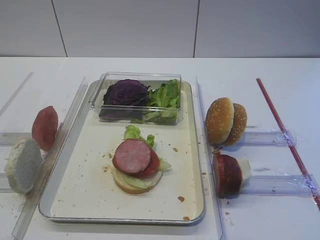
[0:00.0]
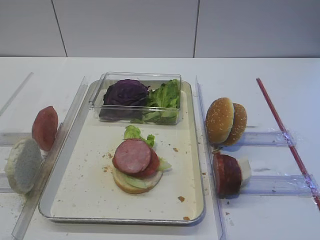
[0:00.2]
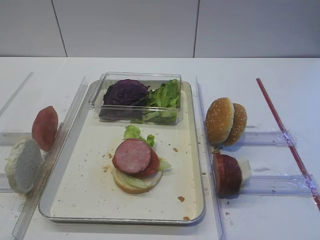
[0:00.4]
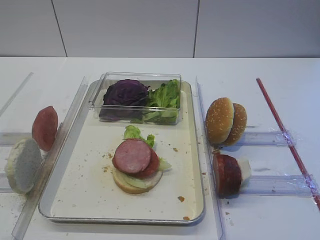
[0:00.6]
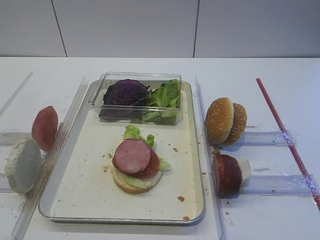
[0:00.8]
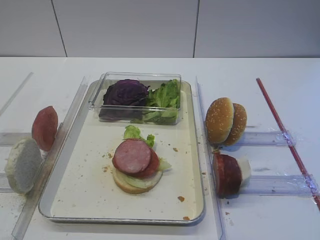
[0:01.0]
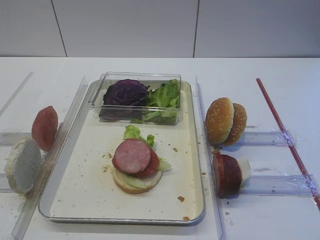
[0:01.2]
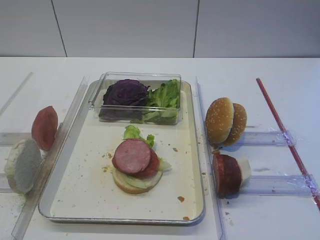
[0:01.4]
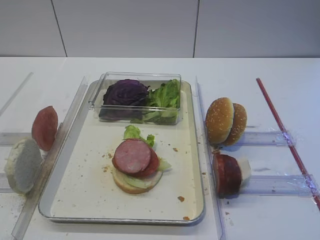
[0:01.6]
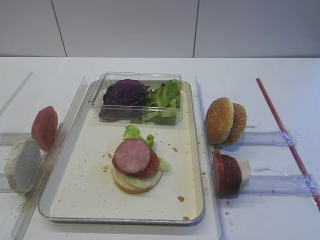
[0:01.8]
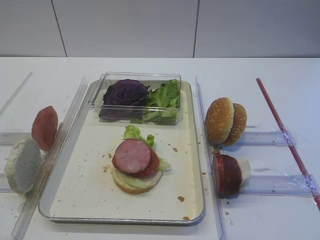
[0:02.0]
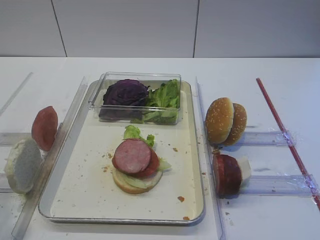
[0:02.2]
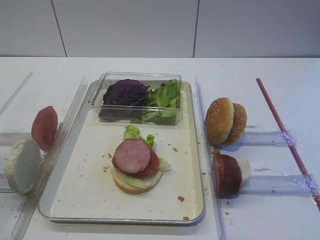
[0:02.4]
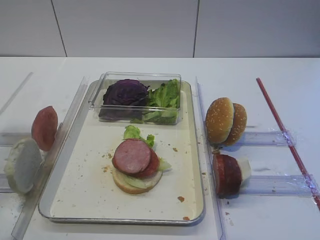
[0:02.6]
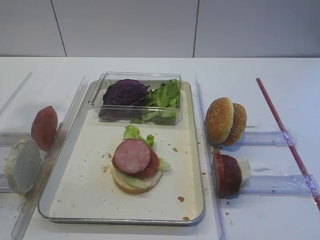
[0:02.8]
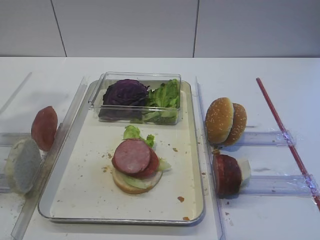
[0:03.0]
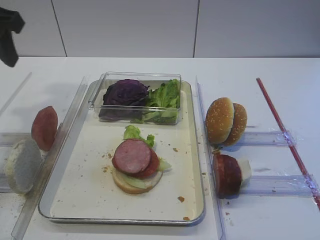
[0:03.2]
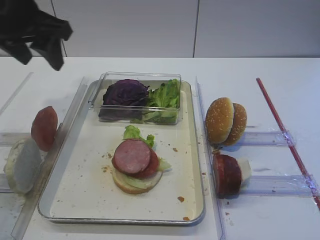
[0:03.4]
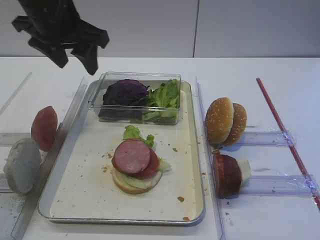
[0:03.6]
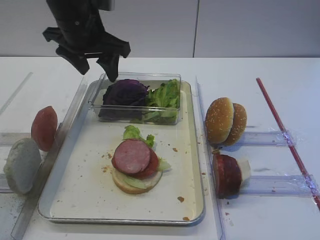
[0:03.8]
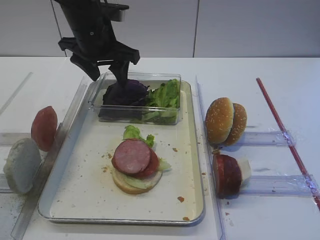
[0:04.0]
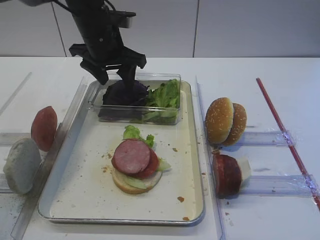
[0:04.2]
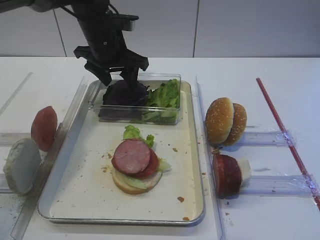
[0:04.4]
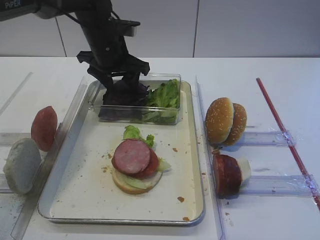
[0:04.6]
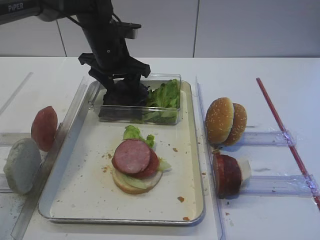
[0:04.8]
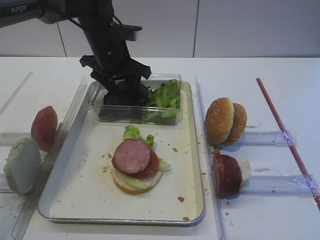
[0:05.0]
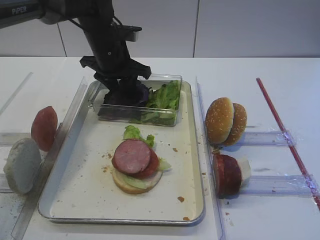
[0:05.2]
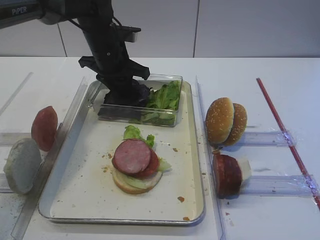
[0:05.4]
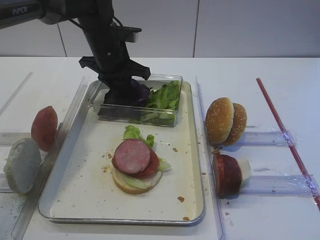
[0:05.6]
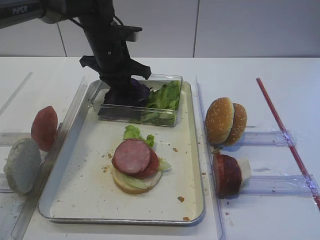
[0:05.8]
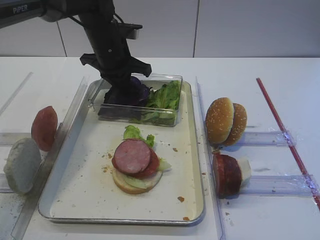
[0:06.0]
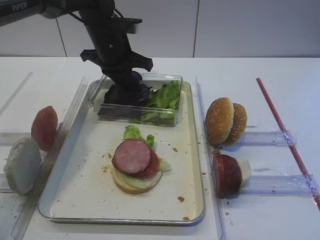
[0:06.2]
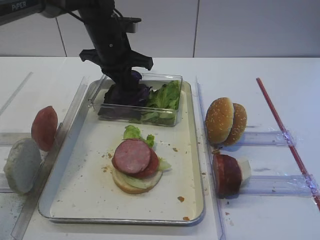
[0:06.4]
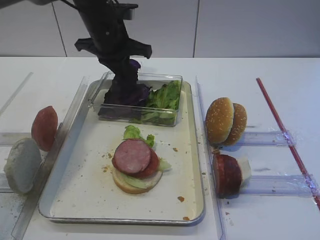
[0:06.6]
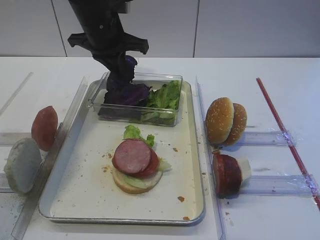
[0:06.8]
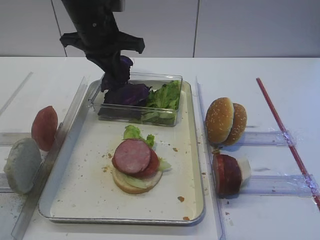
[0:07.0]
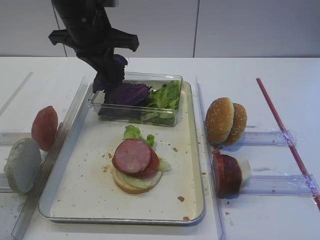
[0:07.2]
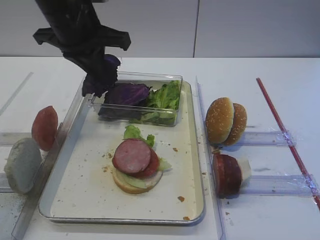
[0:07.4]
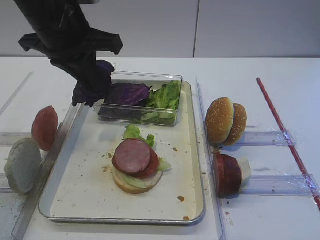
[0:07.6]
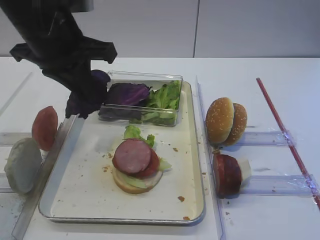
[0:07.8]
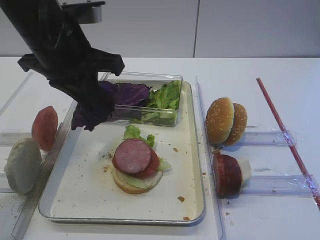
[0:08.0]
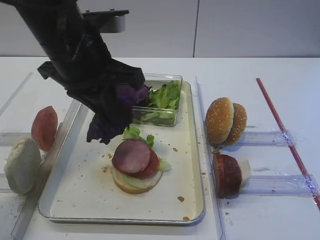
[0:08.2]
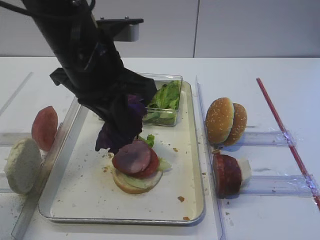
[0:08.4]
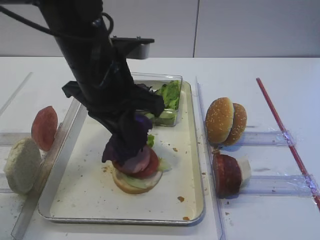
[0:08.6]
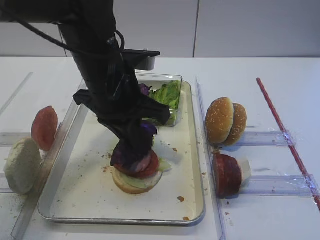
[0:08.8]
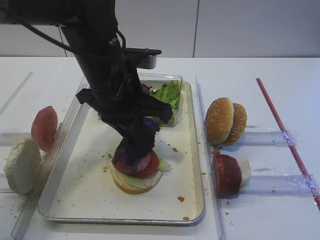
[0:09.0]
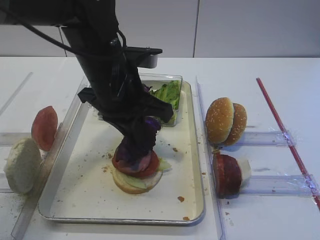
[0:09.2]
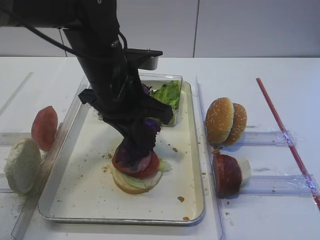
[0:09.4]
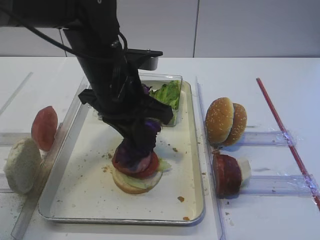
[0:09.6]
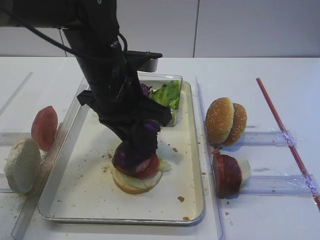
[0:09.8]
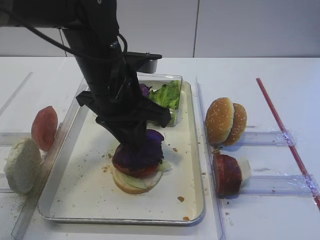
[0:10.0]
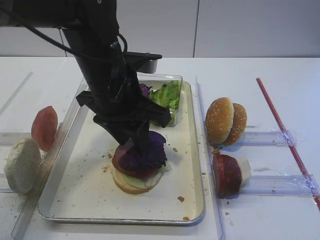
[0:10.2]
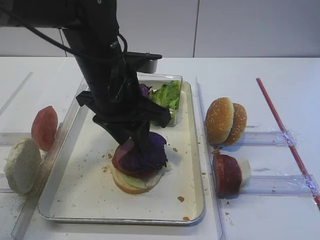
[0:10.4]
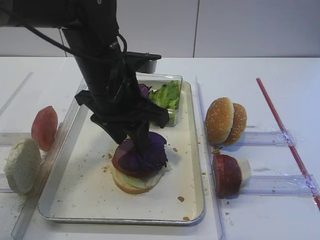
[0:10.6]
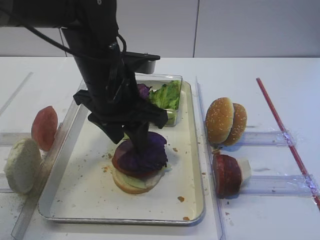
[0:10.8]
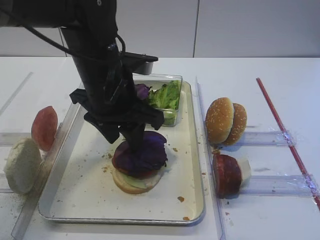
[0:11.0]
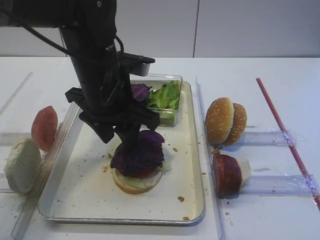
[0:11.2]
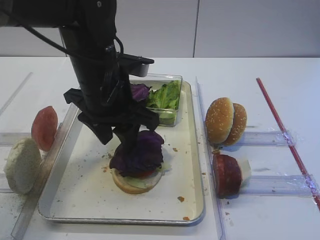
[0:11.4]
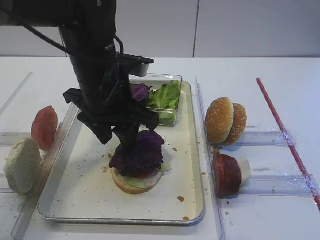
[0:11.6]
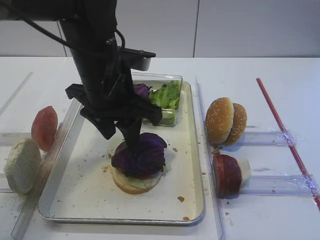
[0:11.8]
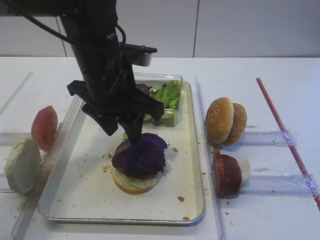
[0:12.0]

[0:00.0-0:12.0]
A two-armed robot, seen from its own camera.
Step, 0:00.0 to 0:07.4: Pick up the purple cabbage with the left gripper.
0:01.6 to 0:03.0: The left gripper is displaced forward and upward by some 30 cm.
0:03.0 to 0:04.4: The left gripper goes some 25 cm forward, to the right and downward.
0:04.4 to 0:06.0: The left gripper closes.
0:06.0 to 0:07.6: The left gripper is displaced backward and upward by about 15 cm.
0:07.6 to 0:09.0: The left gripper moves to the right and downward, some 10 cm.
0:09.0 to 0:10.4: The left gripper opens up.
0:10.4 to 0:12.0: The grippers stay close to where they were, moving slightly.

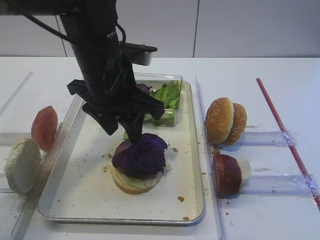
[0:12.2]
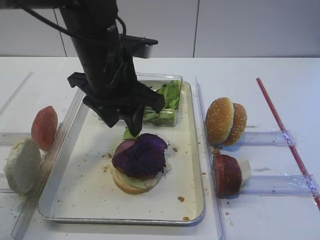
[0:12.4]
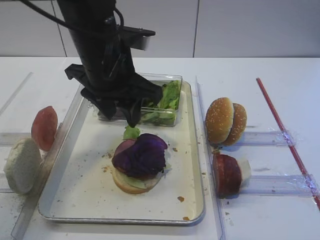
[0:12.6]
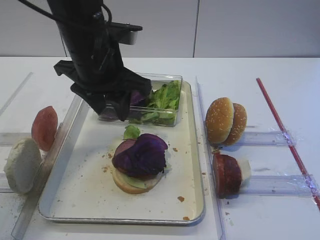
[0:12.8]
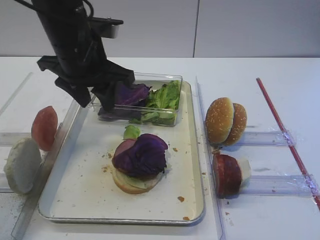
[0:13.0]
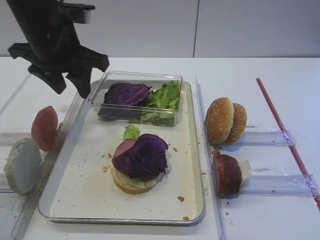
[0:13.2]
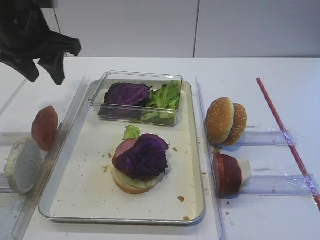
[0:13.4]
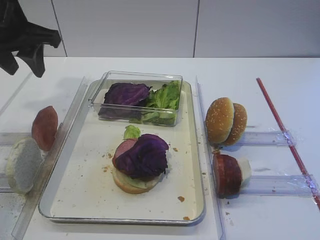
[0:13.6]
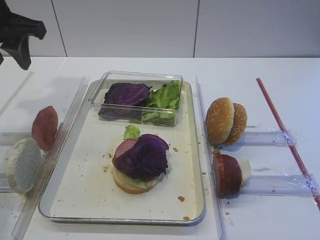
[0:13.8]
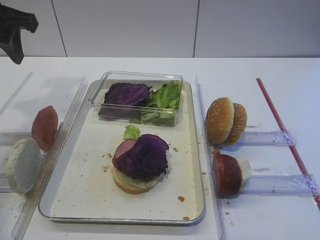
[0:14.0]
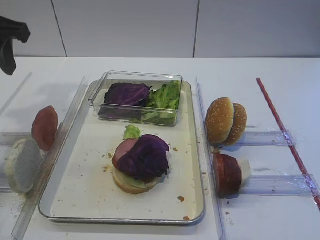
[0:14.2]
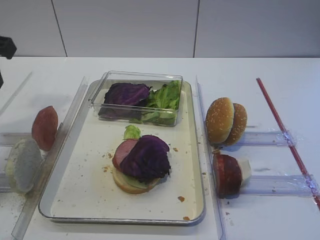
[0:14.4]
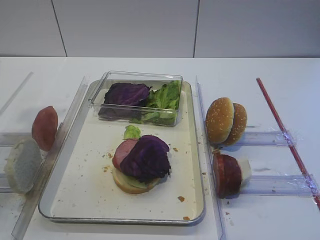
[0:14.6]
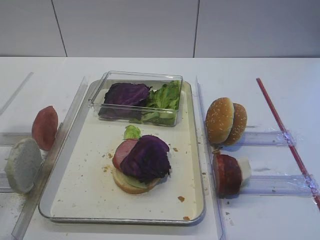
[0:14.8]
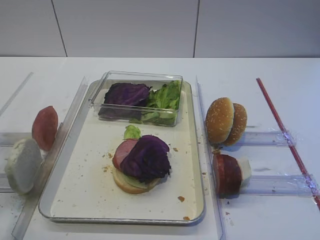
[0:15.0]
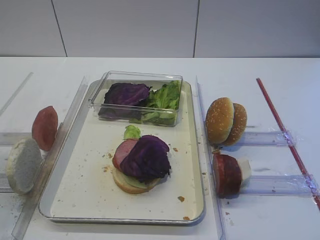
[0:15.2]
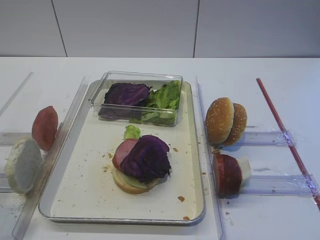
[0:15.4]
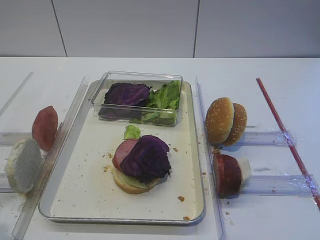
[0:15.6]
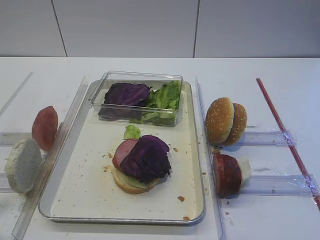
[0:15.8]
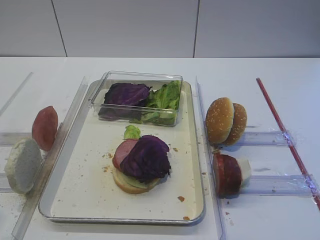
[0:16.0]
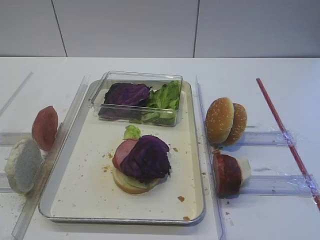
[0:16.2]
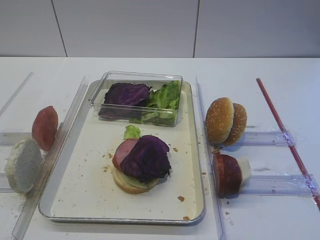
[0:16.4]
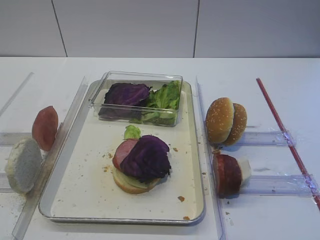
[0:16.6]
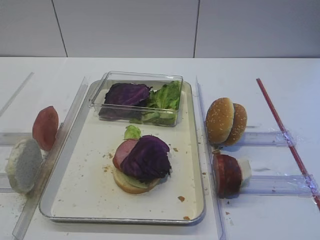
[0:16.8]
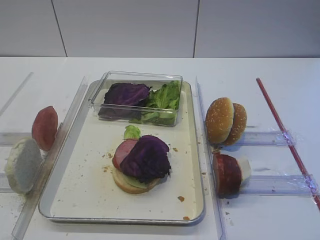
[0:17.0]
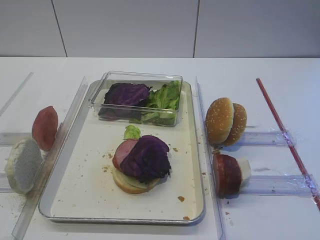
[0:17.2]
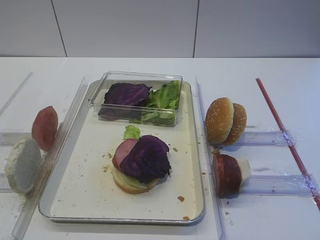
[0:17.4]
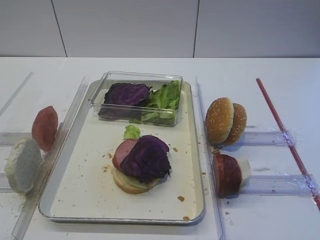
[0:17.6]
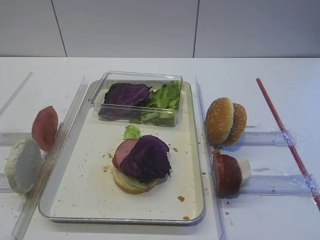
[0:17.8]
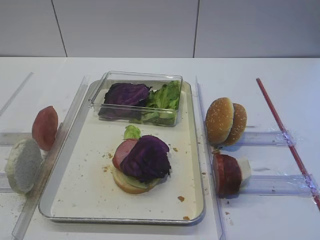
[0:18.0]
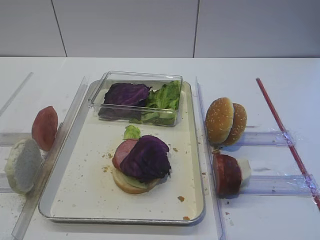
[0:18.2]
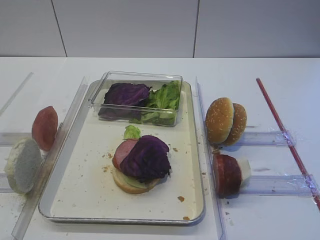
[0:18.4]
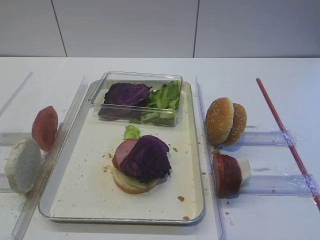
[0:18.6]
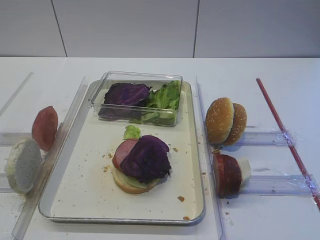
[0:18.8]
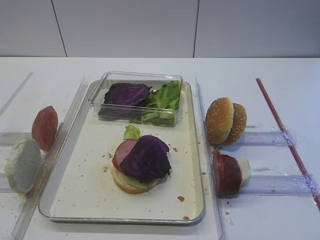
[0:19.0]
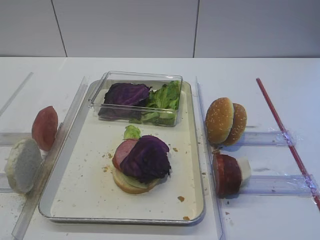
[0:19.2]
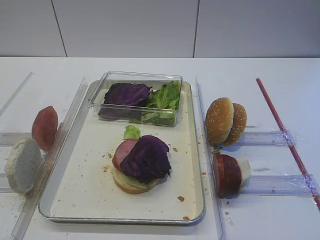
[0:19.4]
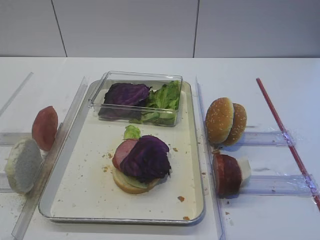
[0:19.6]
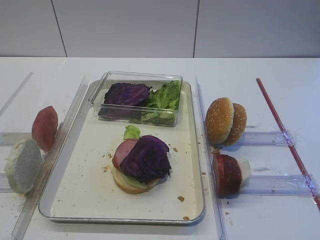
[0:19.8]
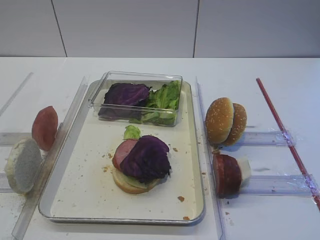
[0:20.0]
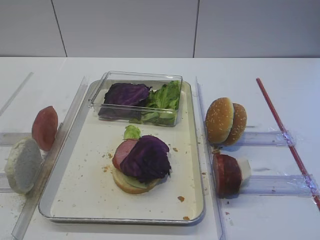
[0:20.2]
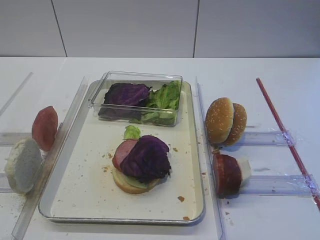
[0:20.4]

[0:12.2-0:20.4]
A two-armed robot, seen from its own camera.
0:12.2 to 0:13.8: The left gripper is displaced to the left and upward by approximately 20 cm.
0:13.8 to 0:15.4: The left gripper travels backward by approximately 25 cm.
0:15.4 to 0:17.2: The left gripper moves backward, approximately 10 cm.
0:17.2 to 0:20.4: Neither gripper changes place.

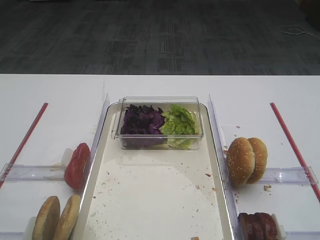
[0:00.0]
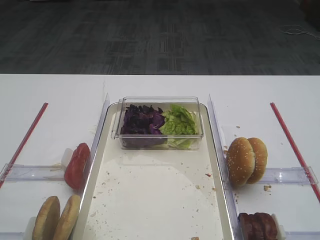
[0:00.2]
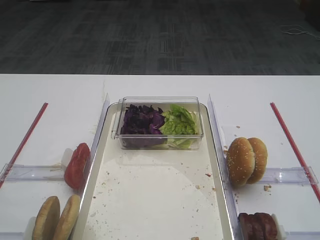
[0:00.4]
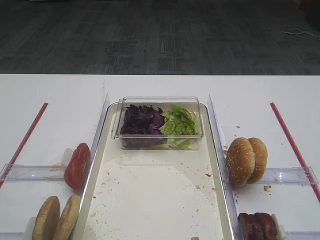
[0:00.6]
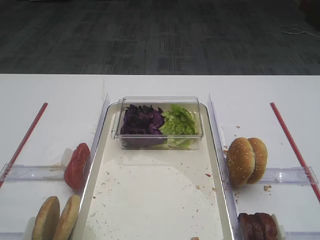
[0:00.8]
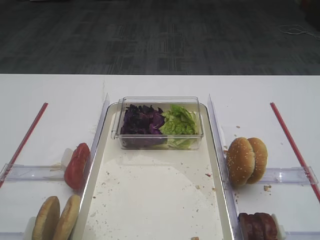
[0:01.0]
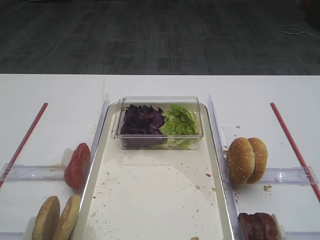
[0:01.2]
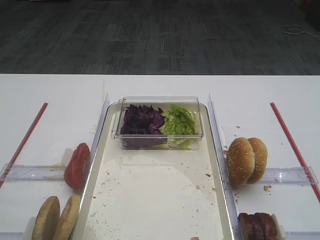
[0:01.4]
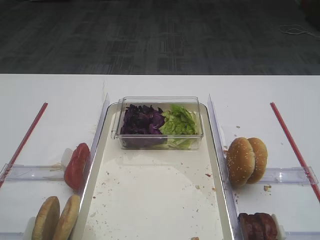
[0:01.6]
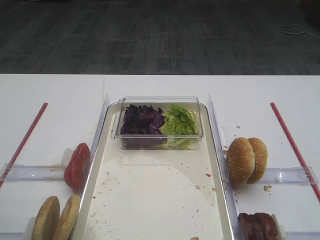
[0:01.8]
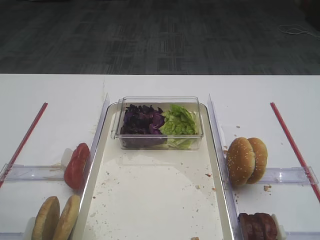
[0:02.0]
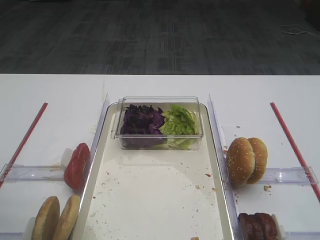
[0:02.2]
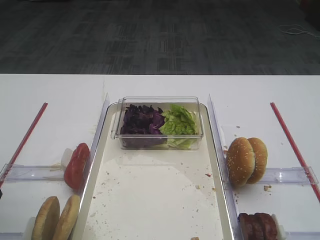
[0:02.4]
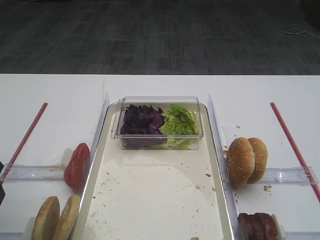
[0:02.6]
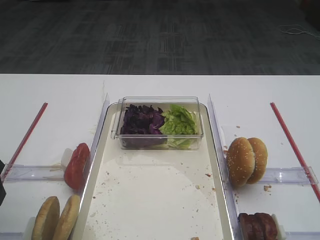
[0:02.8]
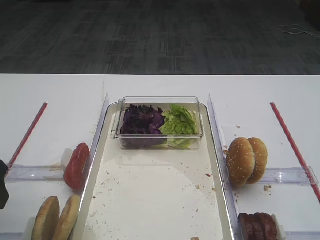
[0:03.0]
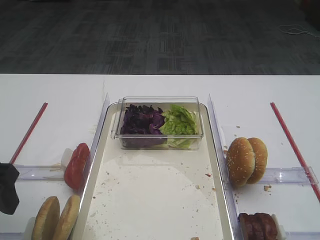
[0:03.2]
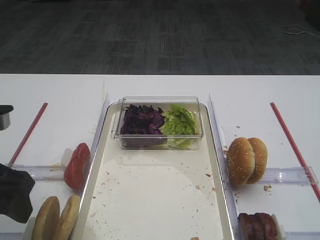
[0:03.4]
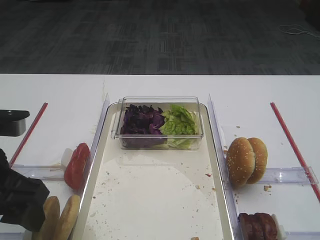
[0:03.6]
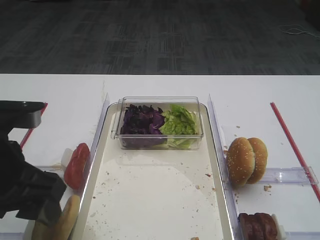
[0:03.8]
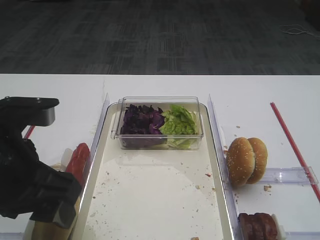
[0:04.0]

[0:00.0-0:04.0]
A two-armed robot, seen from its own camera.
0:01.4 to 0:02.6: The left gripper shifts some 15 cm forward.
0:02.6 to 0:04.0: The left gripper heads to the right, covering roughly 10 cm.
